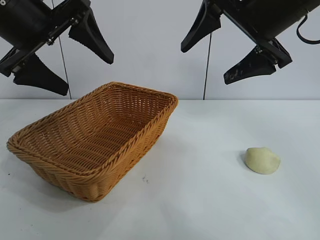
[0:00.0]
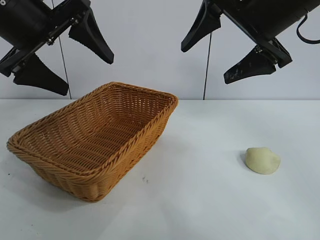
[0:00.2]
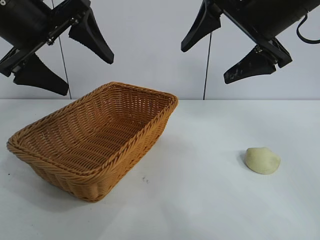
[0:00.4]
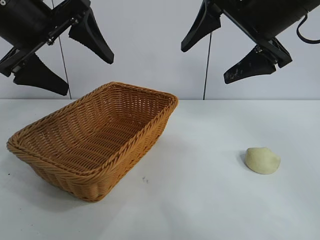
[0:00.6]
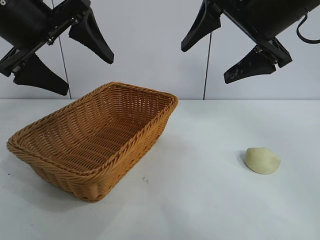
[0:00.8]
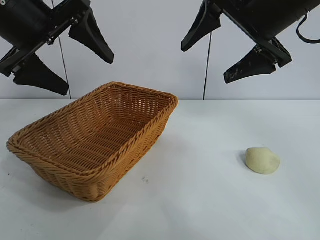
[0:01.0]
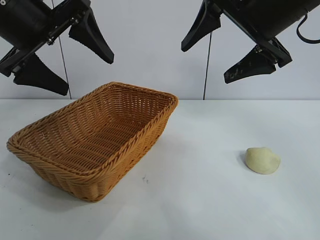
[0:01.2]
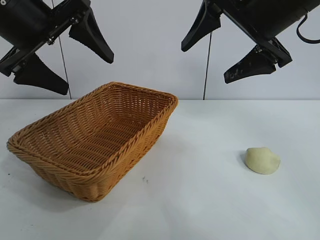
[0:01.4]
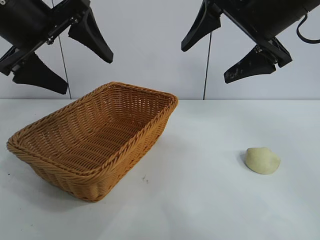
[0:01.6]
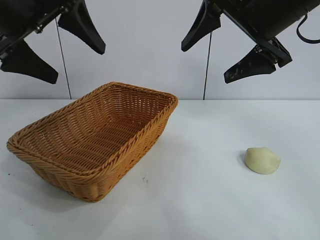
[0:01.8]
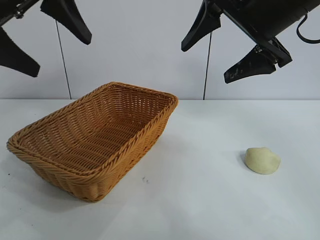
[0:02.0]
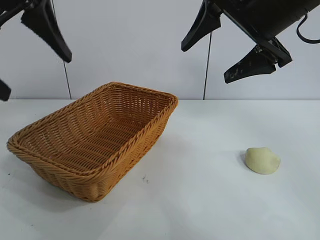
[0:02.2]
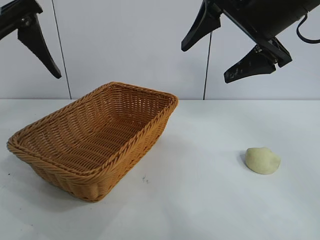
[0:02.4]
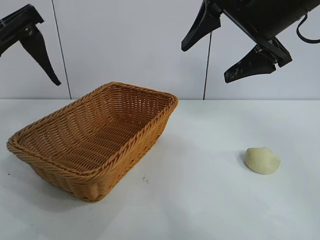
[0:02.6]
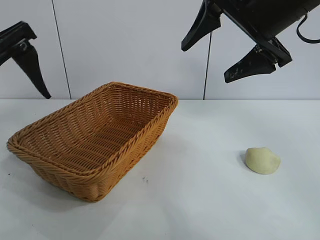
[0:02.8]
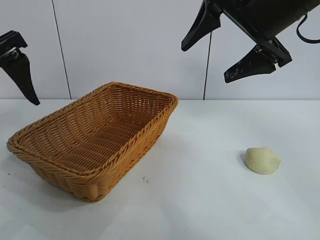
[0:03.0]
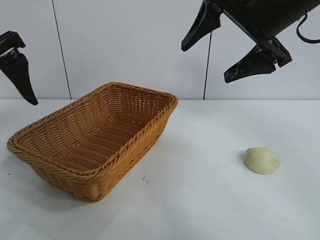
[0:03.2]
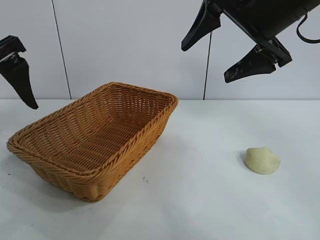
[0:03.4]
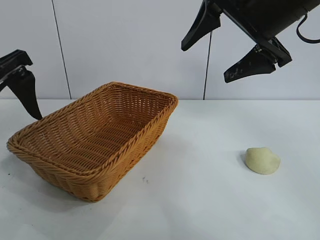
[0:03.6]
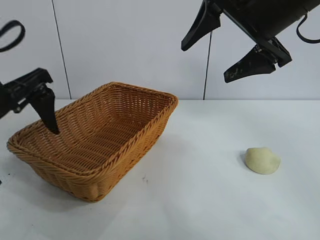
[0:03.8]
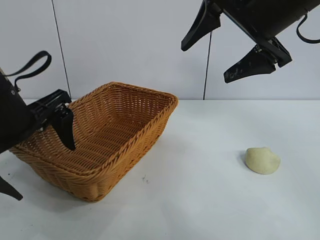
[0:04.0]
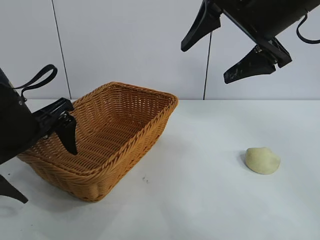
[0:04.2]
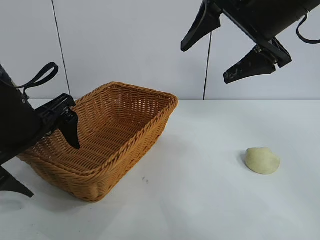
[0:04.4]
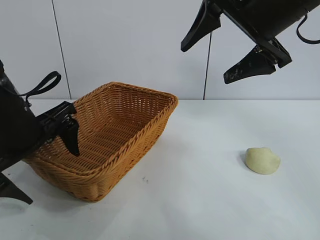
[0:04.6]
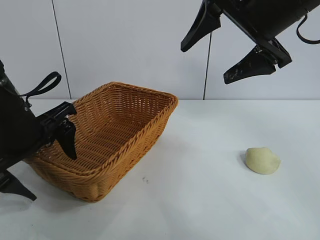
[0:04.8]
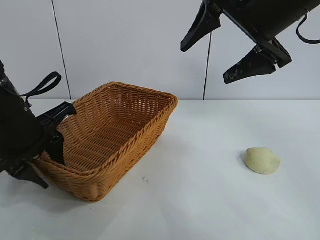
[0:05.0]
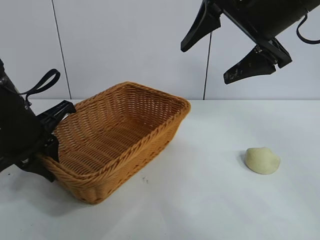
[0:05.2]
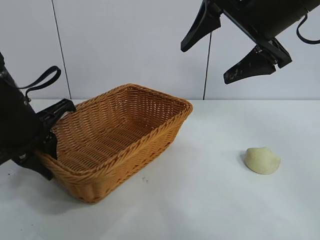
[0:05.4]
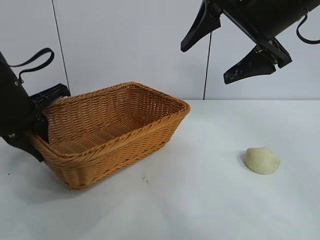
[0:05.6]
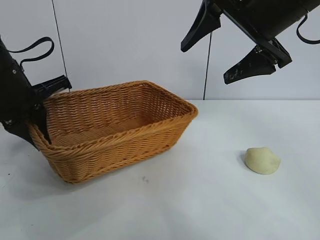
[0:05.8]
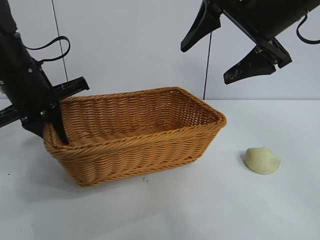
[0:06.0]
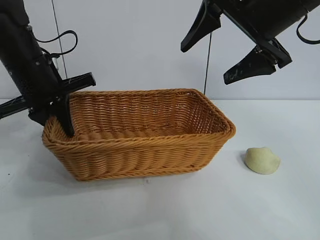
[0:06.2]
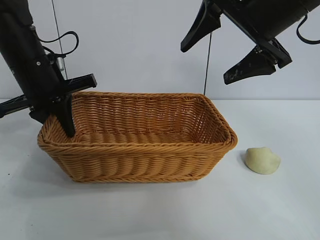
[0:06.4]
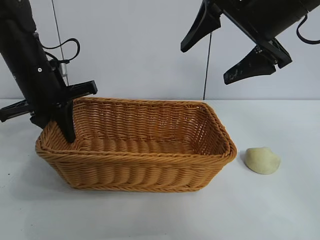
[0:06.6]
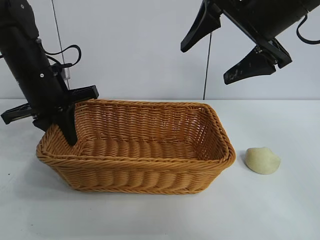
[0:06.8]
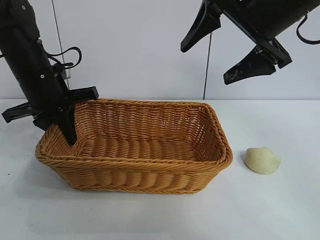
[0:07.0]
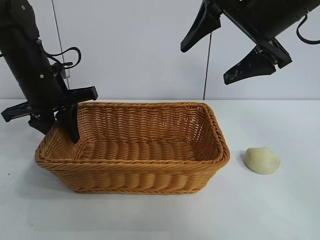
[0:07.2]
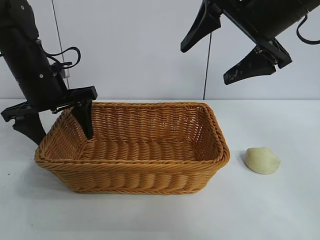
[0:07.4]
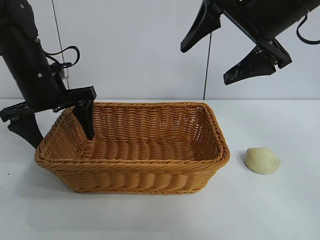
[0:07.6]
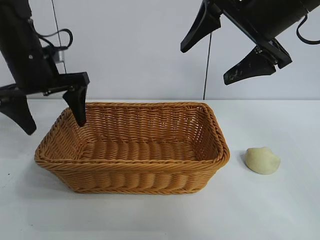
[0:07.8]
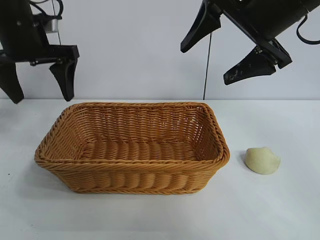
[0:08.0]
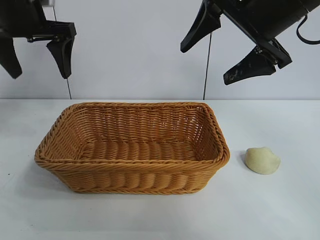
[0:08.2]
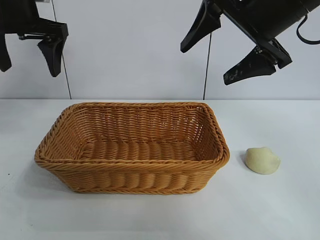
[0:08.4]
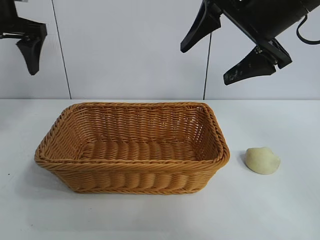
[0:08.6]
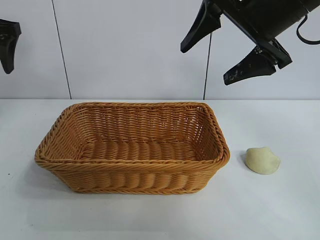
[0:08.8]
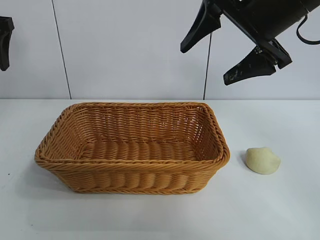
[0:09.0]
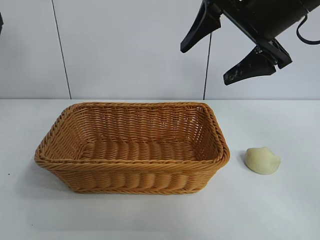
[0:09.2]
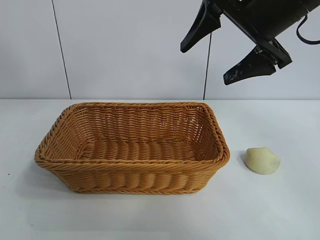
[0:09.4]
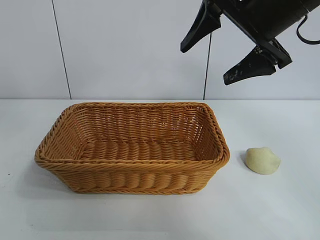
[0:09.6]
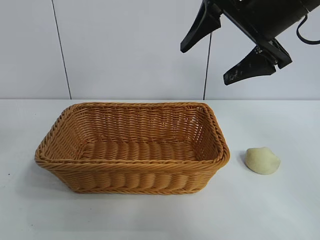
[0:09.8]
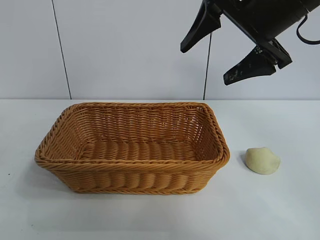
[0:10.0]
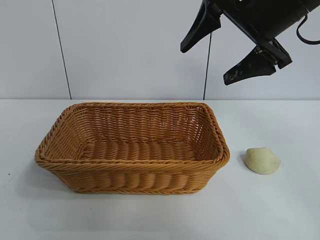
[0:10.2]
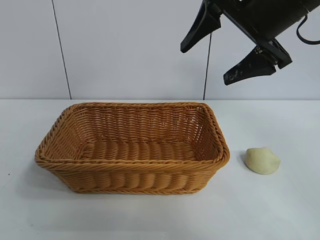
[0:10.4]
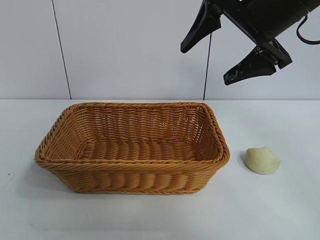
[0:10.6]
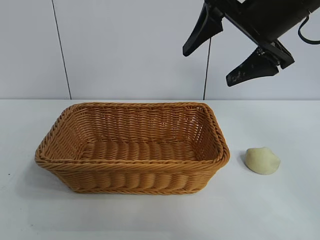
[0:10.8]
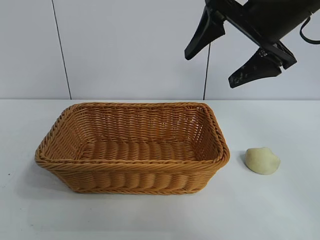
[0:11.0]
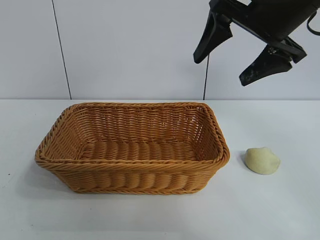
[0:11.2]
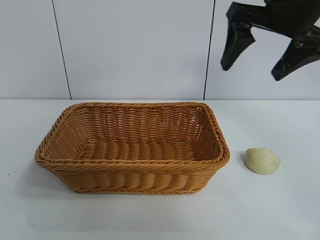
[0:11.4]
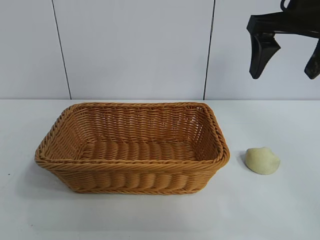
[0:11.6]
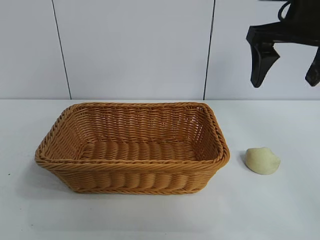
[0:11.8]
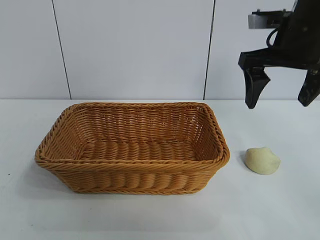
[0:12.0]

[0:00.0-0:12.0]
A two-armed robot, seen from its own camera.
Task of the whole recording: pick up the egg yolk pastry and put it into the basket.
Step, 0:01.6 to 0:05.2: Grasp the basket with left gripper.
Step, 0:05.4 to 0:07.4: Place the basket in the center of view with left gripper.

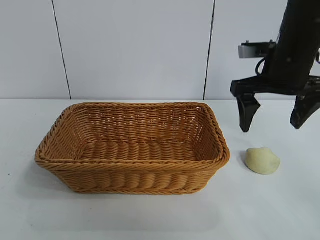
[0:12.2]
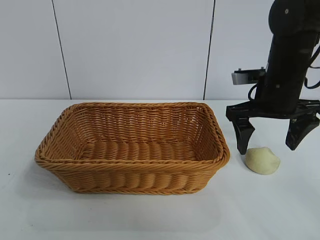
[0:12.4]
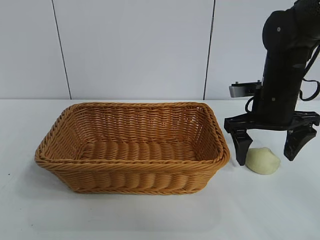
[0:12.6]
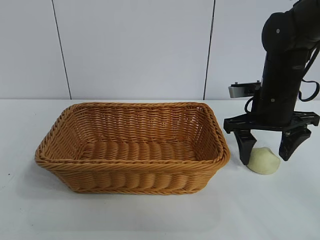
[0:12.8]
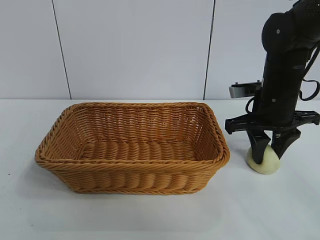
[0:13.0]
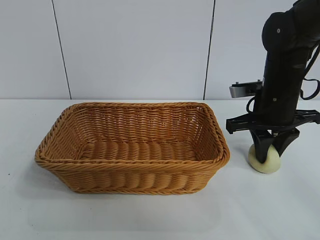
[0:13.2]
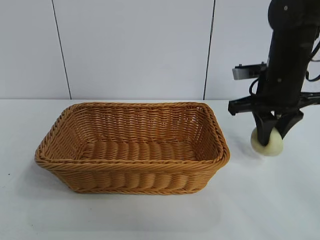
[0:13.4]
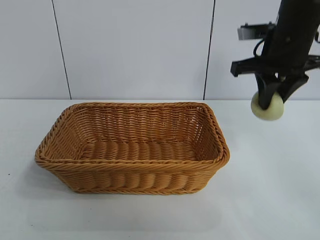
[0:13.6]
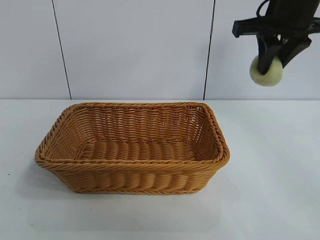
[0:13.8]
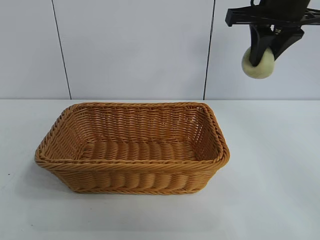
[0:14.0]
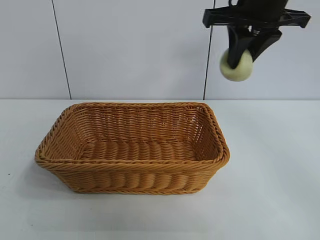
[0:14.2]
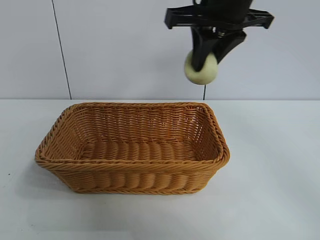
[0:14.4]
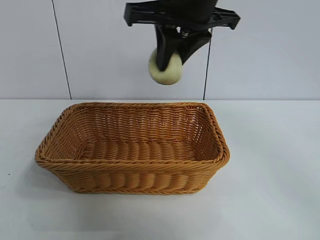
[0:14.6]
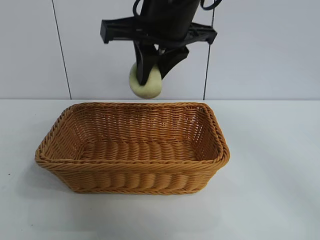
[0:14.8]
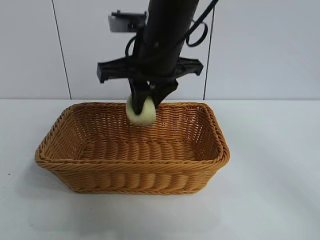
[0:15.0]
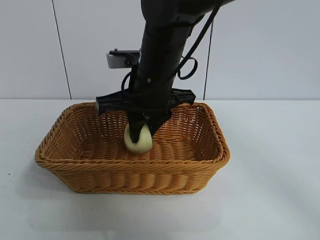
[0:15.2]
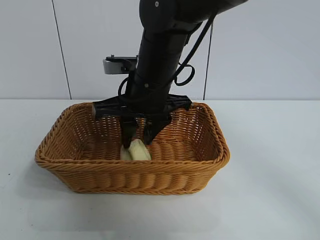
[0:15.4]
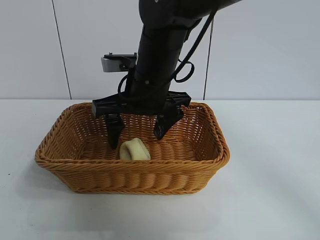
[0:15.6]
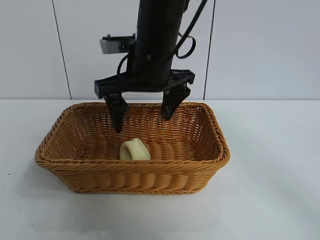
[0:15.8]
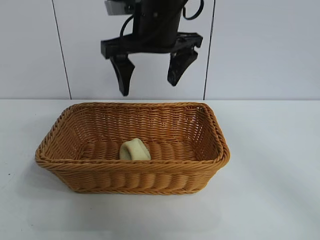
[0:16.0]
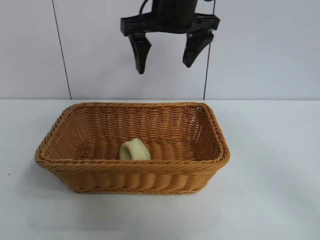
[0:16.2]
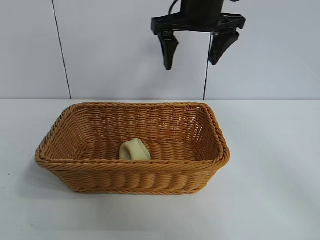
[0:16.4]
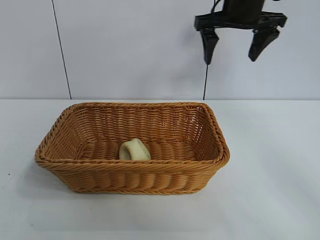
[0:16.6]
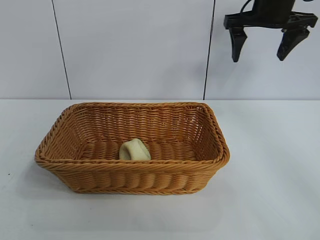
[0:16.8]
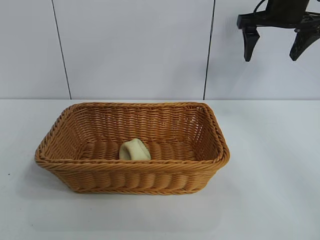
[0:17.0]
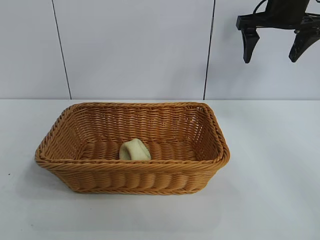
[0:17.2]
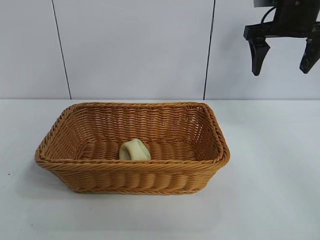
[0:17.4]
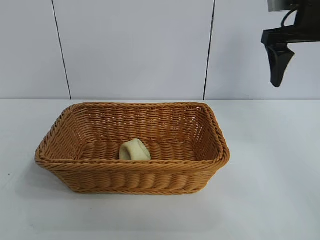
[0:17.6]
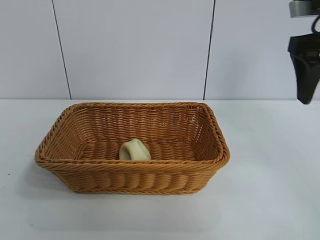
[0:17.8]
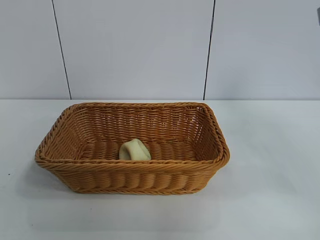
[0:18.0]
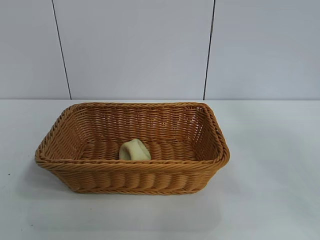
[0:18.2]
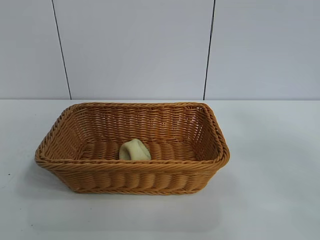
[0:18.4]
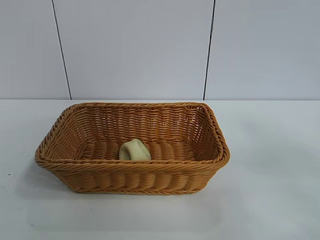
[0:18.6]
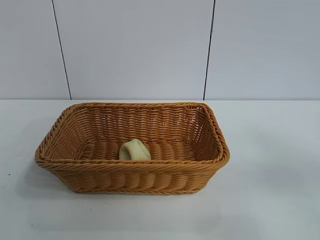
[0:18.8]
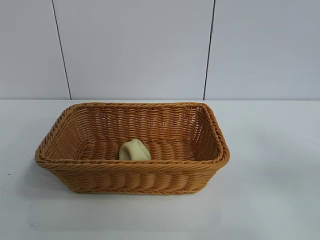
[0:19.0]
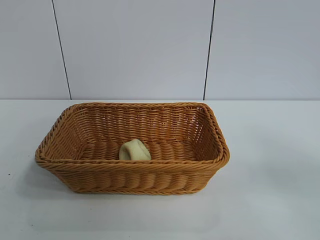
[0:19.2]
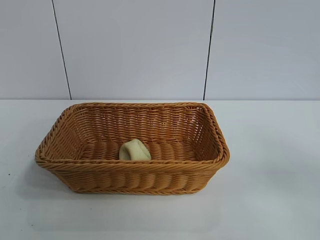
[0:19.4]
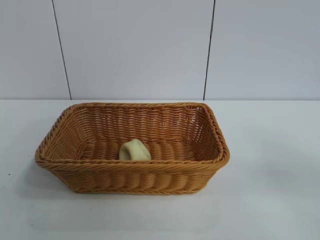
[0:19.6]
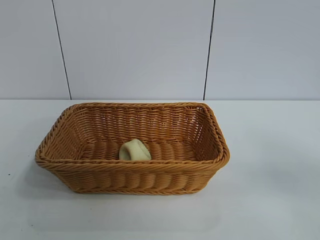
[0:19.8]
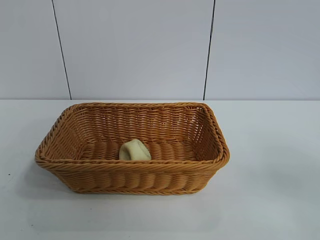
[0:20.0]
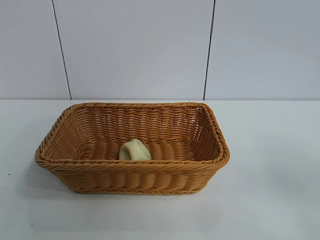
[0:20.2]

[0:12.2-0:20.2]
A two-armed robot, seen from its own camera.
Task of the whole recording: pick up the egg yolk pastry and put it into the basket.
Step, 0:13.4 to 0:15.6: Place the egg yolk pastry in the basket with right gripper.
